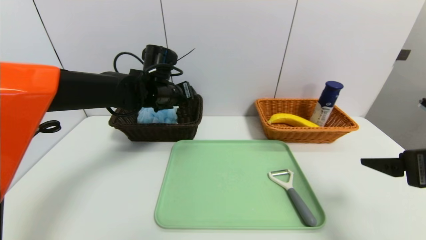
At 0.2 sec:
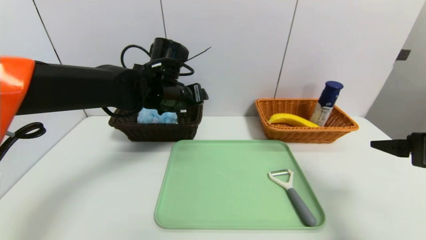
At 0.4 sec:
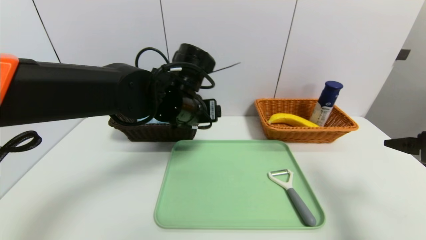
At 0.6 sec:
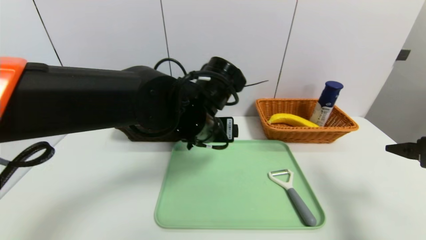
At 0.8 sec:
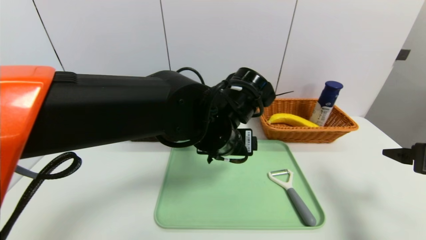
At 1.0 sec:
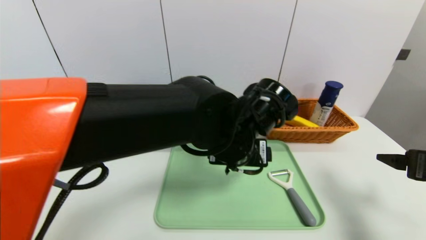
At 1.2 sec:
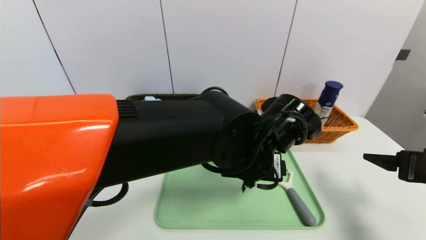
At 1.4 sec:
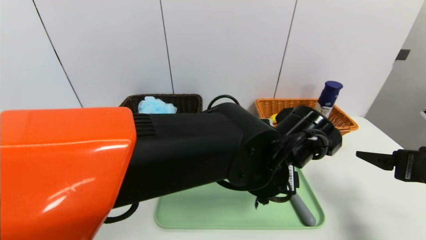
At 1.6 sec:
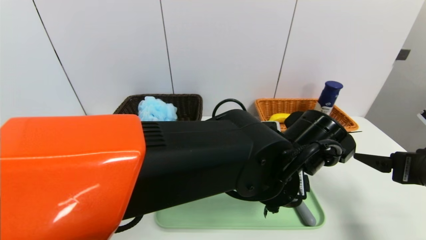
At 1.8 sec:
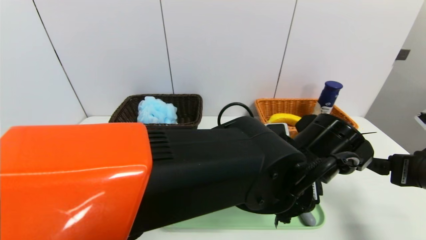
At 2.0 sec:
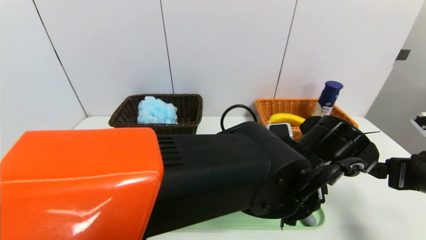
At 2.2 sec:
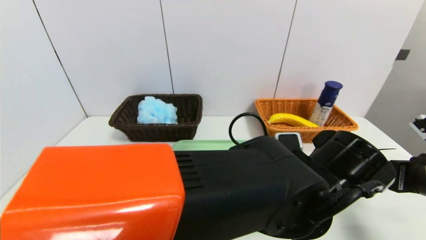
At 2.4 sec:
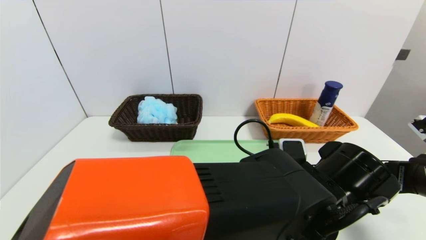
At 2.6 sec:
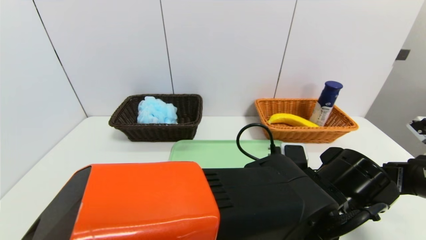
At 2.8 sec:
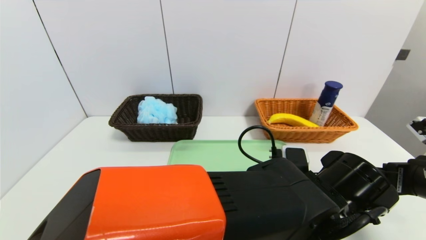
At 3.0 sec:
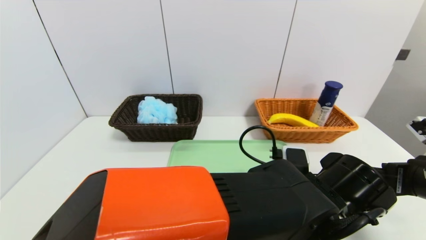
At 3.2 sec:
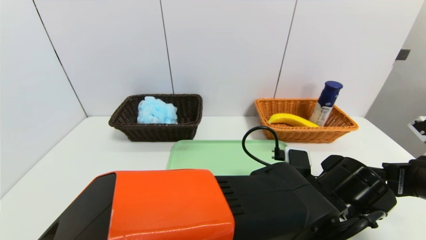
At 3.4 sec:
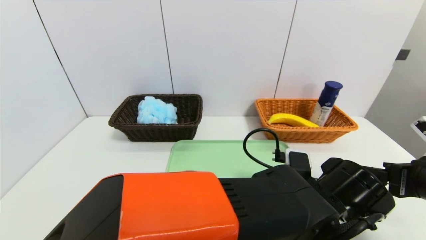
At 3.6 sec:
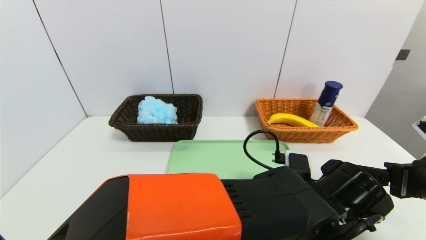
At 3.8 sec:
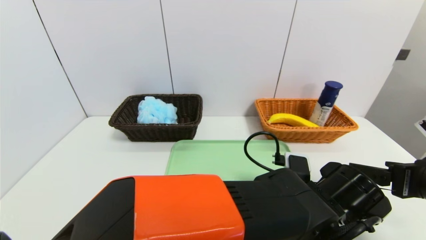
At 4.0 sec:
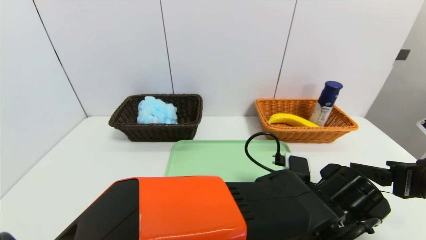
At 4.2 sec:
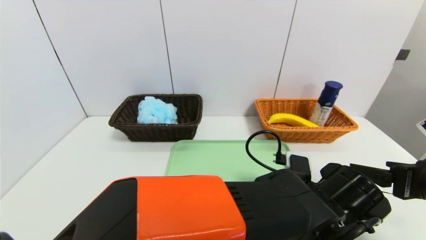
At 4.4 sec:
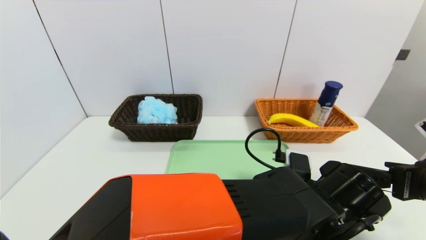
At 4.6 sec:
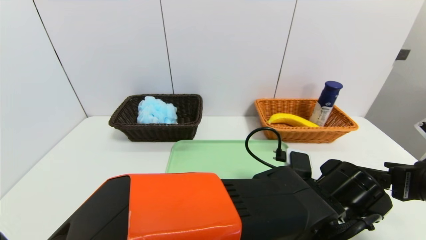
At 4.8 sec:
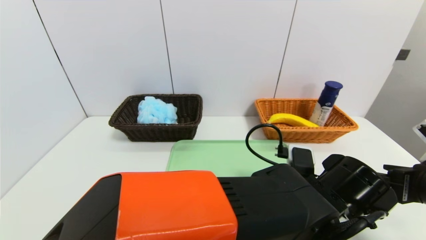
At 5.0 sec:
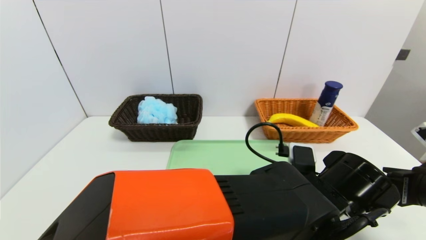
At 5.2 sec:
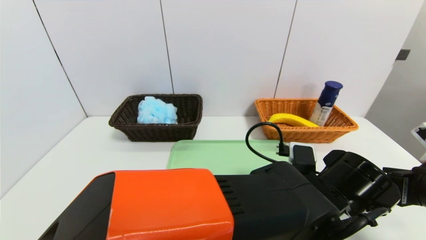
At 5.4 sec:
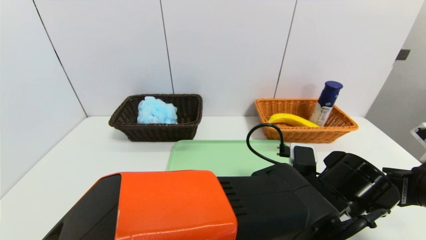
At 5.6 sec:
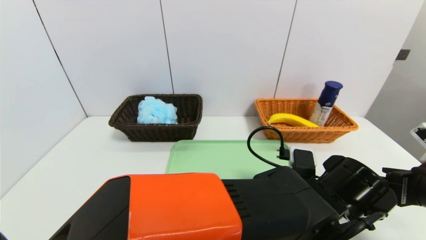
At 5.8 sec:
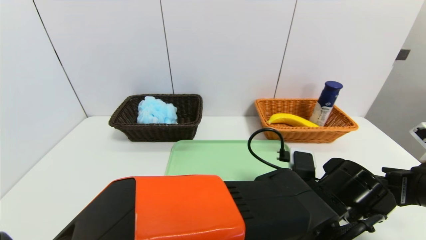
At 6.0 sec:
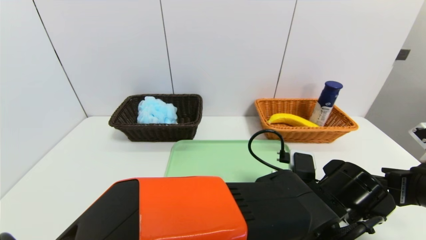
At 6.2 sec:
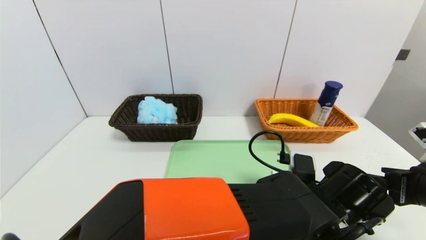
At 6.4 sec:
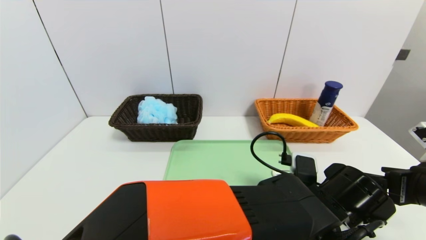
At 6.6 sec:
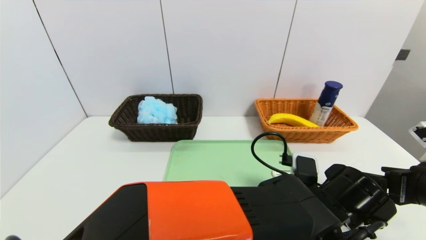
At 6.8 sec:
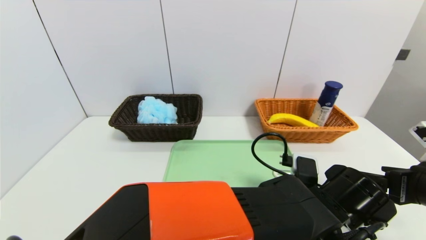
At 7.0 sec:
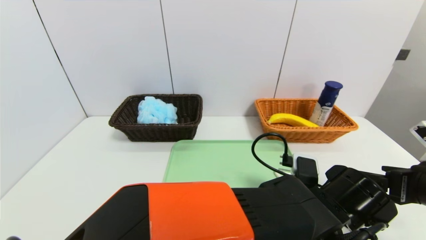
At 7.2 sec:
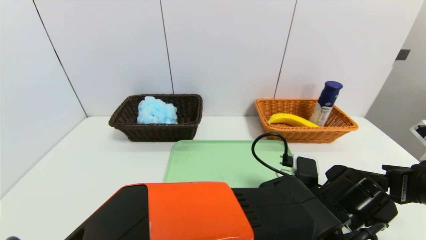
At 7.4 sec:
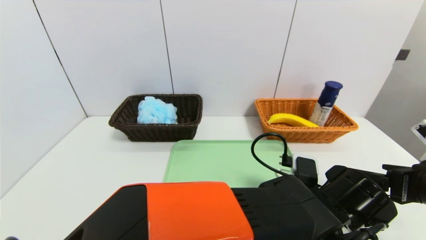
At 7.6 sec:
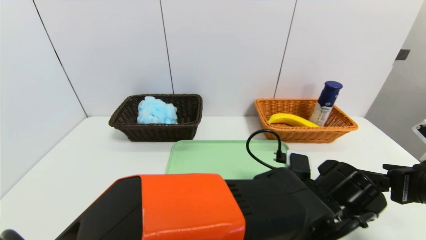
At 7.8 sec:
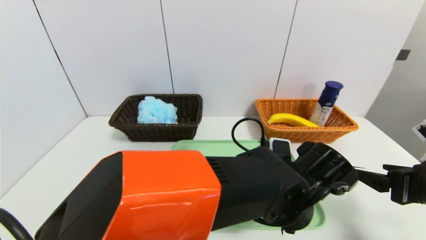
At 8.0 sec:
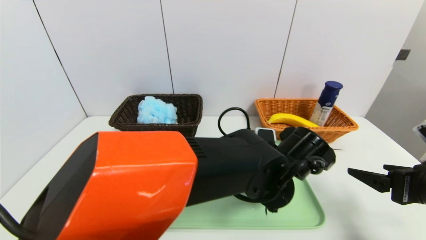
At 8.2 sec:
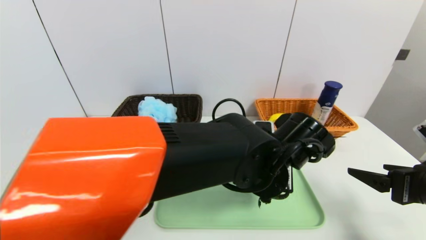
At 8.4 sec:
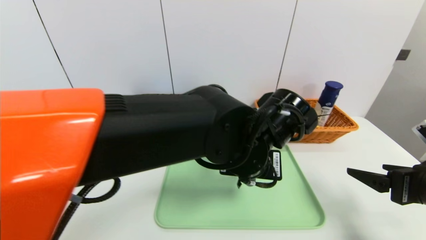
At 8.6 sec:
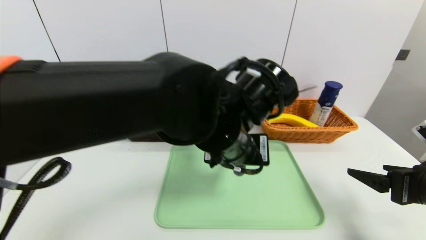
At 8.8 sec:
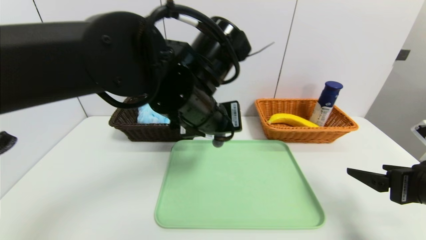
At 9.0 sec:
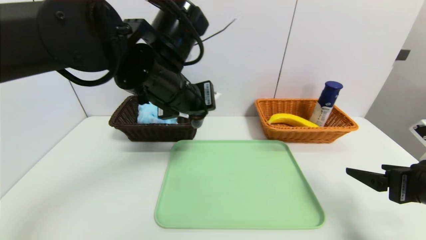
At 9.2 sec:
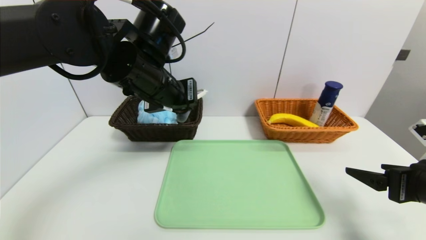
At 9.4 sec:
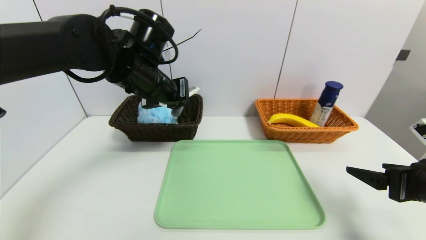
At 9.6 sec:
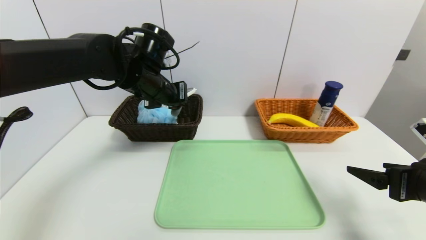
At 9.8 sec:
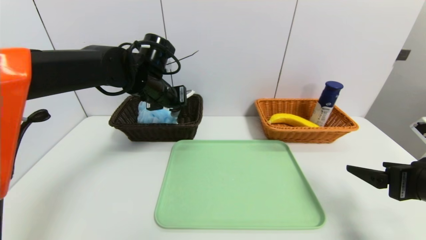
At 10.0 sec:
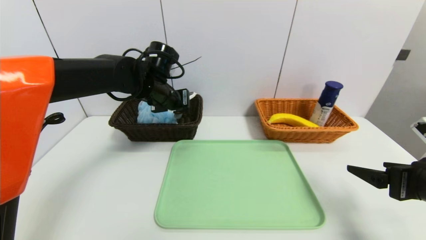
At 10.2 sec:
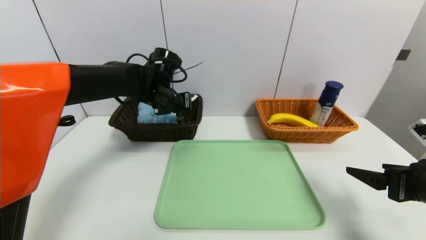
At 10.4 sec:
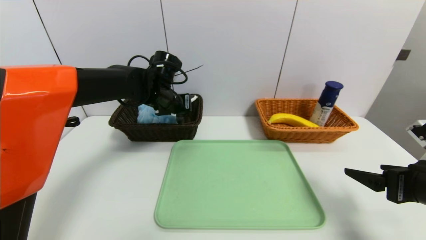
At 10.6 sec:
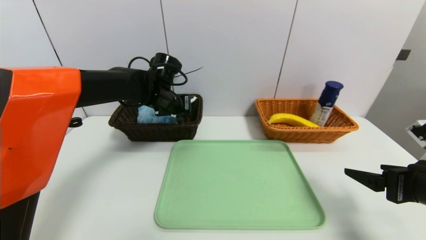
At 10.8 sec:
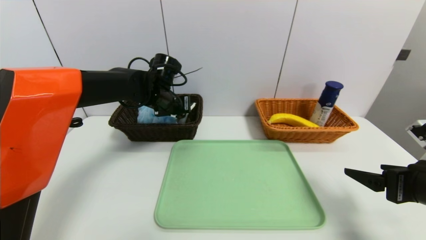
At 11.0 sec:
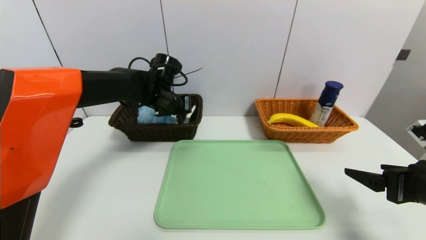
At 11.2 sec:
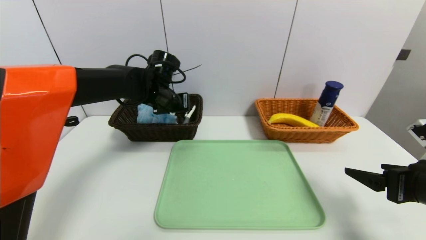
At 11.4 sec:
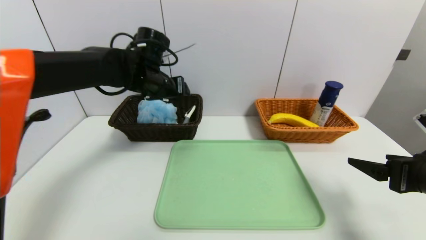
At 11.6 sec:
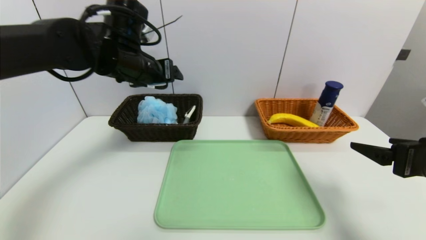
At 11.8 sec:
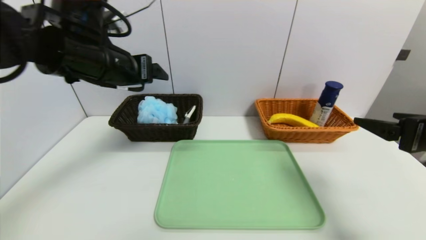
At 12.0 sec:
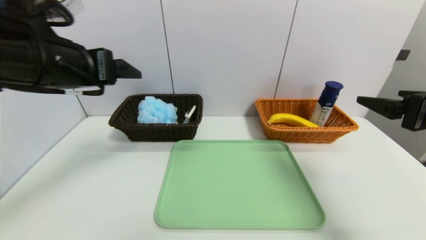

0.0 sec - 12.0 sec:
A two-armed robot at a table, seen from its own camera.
Task of the whole recording: place the food in the right basket with the right gripper, and place the non food items in the left basket with the left gripper.
Step, 0.0 sec - 11.0 sec: Grasp the peeler and put it in the left basket.
0.0 sec - 1.6 sec: The right gripper changes place by roughly 5 cm. Meanwhile the left gripper heads to the right and backward, covering about 30 cm.
1.6 sec - 3.0 sec: The left gripper changes place by roughly 5 cm.
3.0 sec - 6.0 sec: The grippers move only a little.
6.0 sec - 7.6 sec: The left gripper closes its fingers.
7.6 sec - 9.0 sec: The left gripper travels to the left and upward by some 25 cm.
9.0 sec - 10.4 sec: The left gripper moves forward and downward, about 15 cm.
10.4 sec - 12.0 sec: The left gripper moves backward, upward and to the left, roughly 25 cm, and opens its fingers, while the right gripper shifts approximately 10 cm upward.

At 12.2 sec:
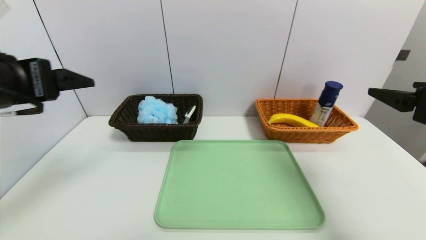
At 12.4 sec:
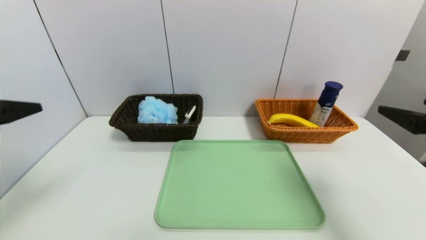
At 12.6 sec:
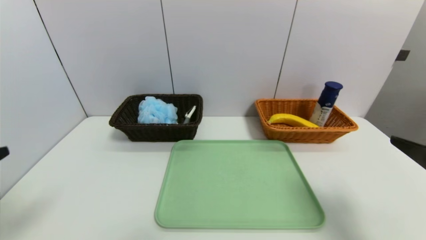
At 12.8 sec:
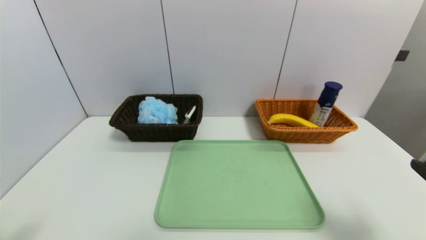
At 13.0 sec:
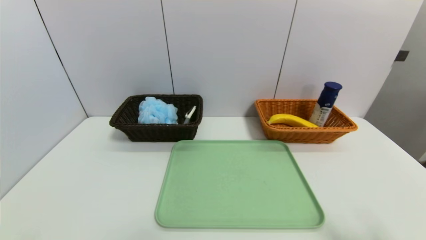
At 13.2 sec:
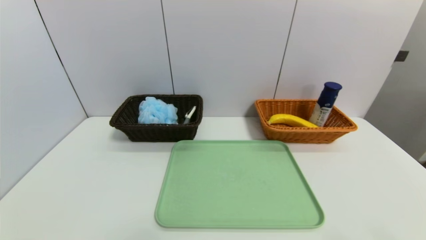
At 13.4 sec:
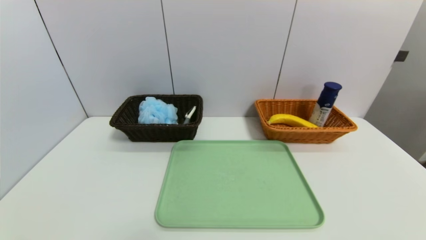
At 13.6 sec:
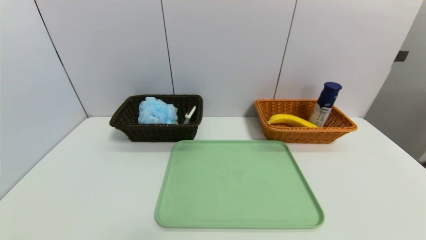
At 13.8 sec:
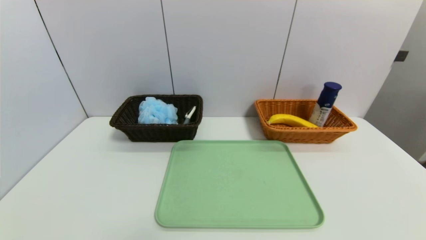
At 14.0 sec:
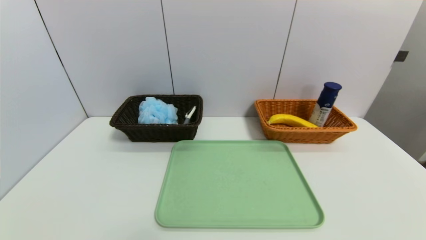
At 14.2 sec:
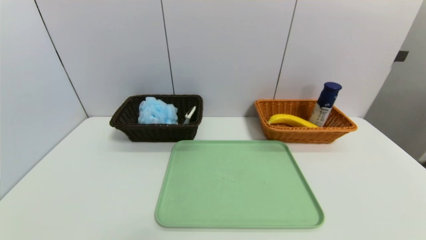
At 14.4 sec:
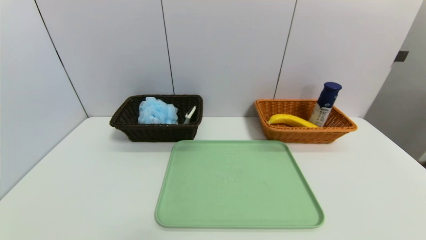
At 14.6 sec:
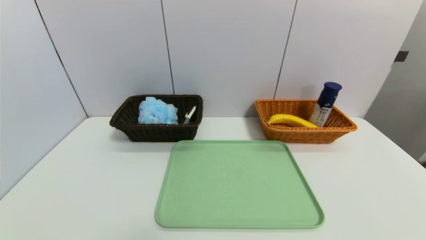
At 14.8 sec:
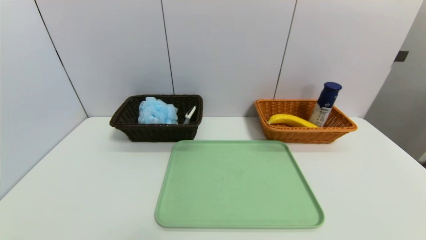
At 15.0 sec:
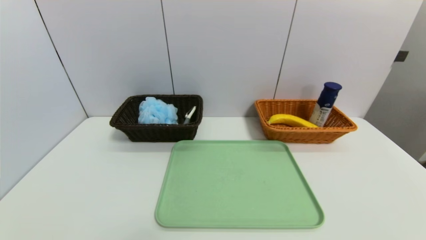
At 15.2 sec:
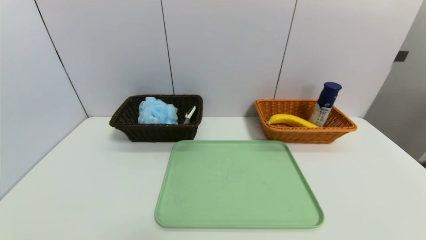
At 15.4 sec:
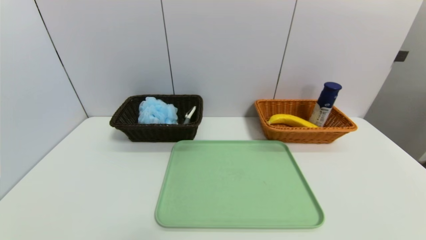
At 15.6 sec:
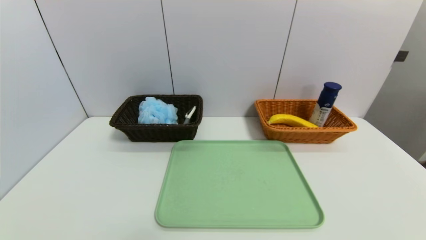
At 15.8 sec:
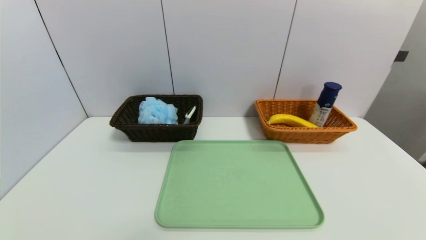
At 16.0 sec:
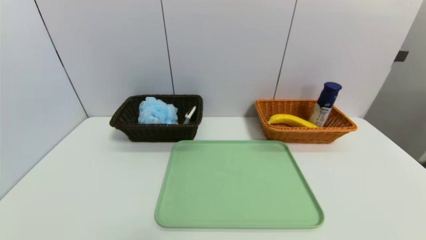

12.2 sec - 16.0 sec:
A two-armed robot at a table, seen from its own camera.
Task of the whole recording: place the food in the right basket with the right gripper, and place the non food items in the left basket with the left gripper.
12.2 sec - 13.4 sec: Both grippers travel together backward and downward, some 25 cm.
